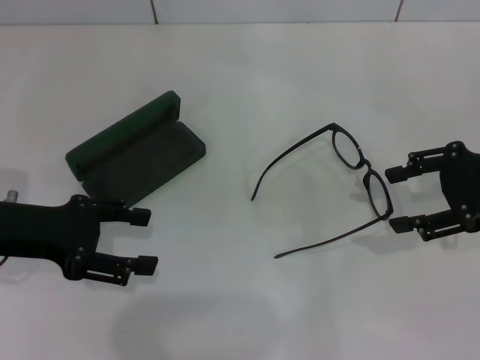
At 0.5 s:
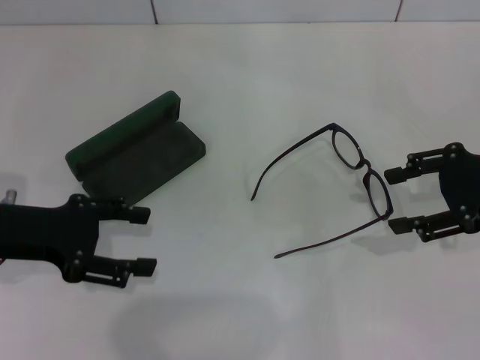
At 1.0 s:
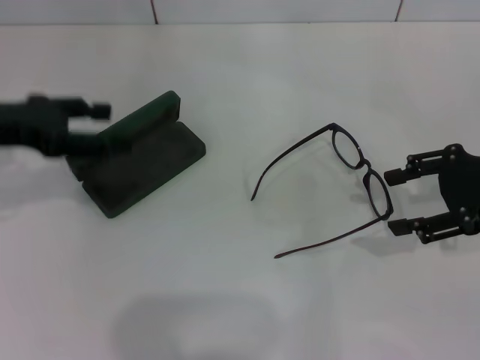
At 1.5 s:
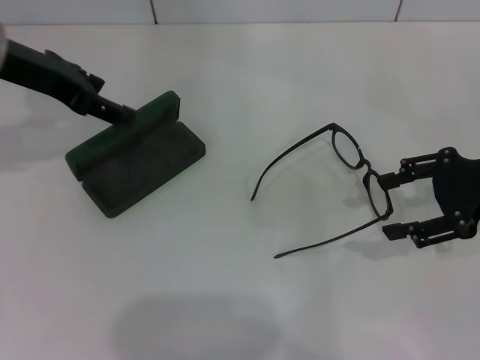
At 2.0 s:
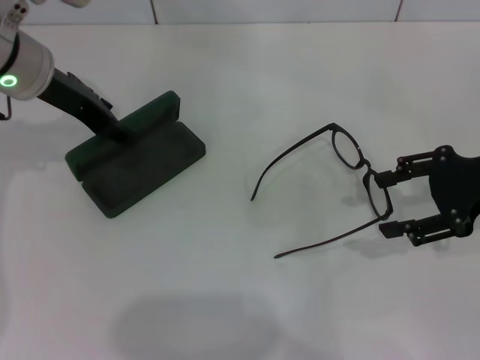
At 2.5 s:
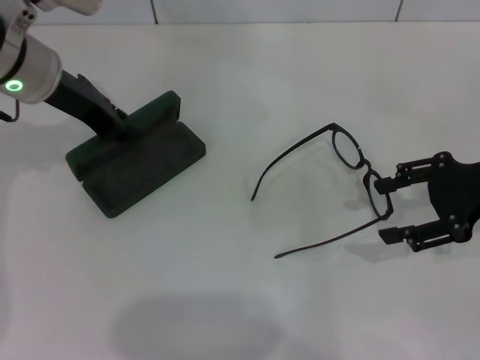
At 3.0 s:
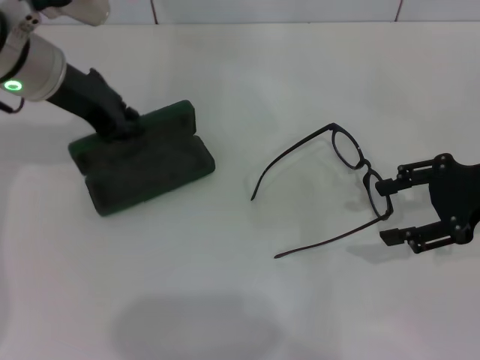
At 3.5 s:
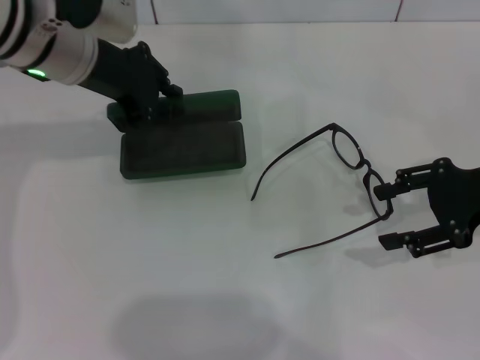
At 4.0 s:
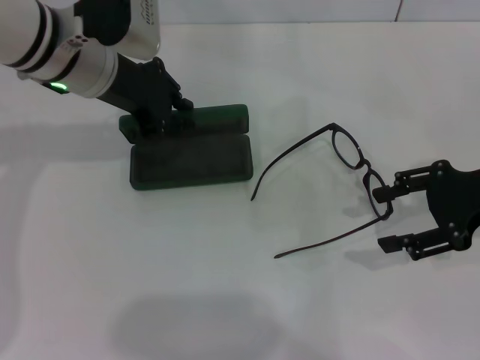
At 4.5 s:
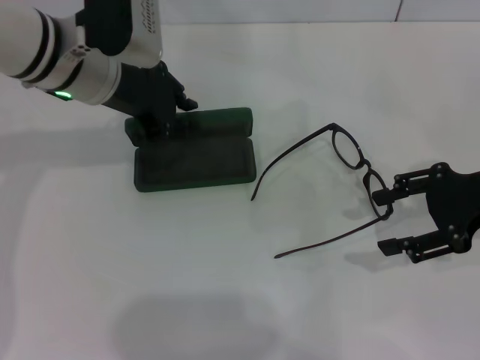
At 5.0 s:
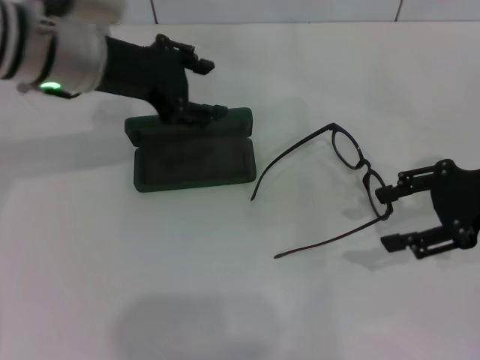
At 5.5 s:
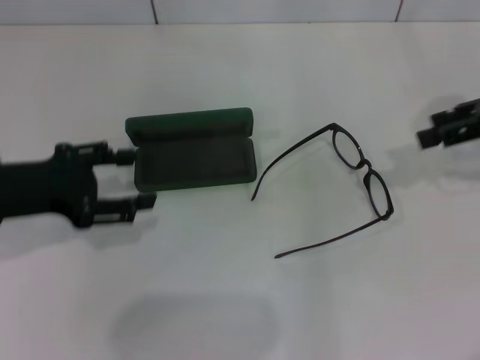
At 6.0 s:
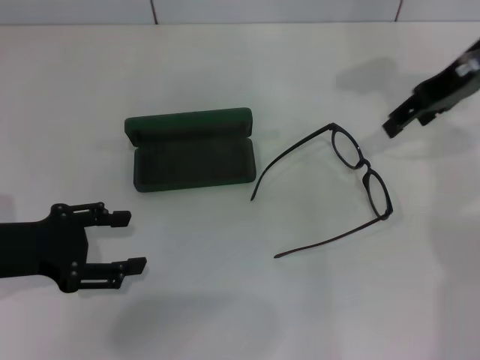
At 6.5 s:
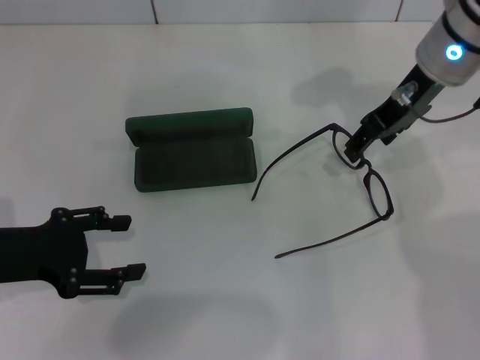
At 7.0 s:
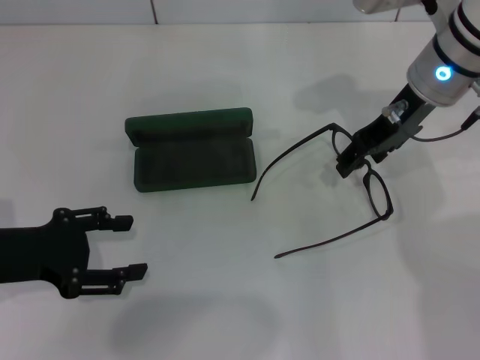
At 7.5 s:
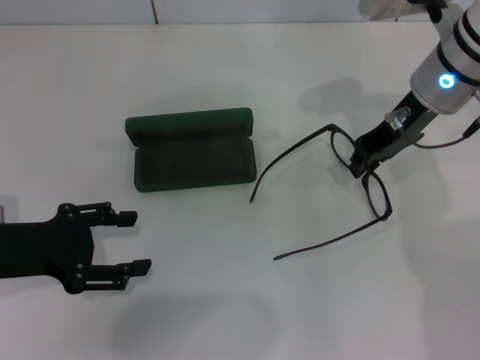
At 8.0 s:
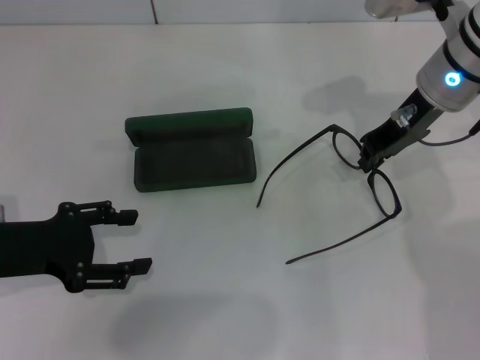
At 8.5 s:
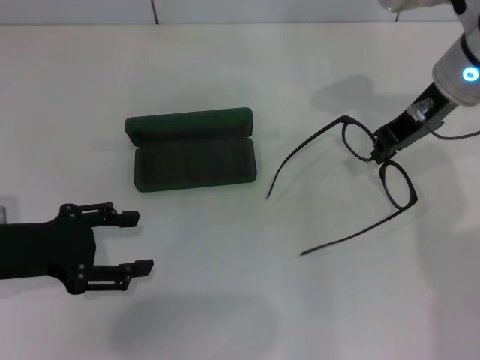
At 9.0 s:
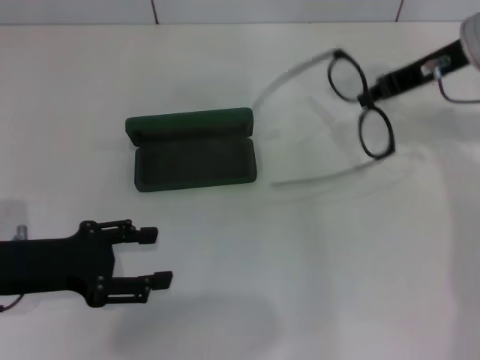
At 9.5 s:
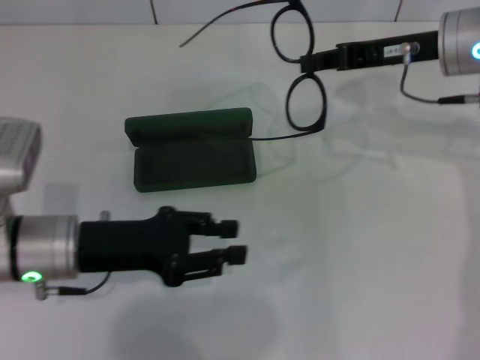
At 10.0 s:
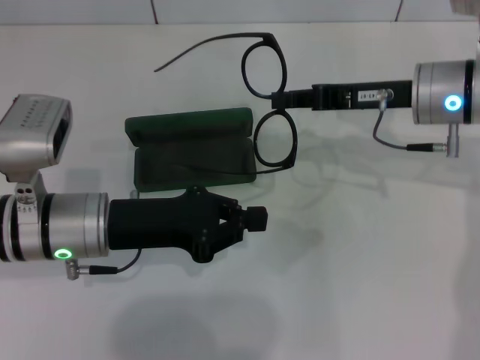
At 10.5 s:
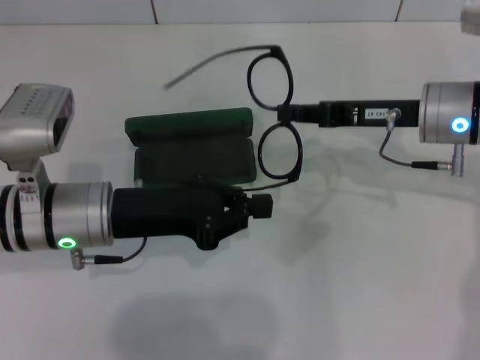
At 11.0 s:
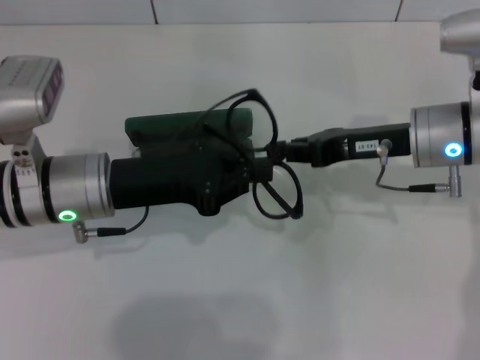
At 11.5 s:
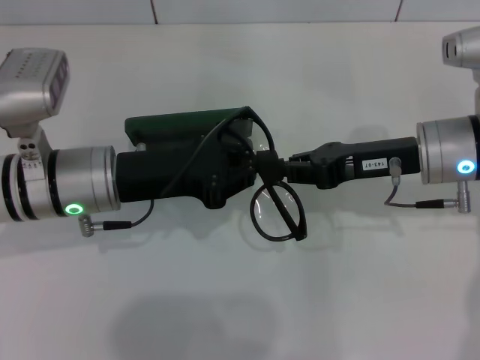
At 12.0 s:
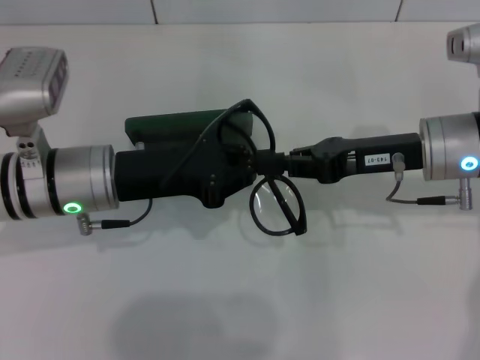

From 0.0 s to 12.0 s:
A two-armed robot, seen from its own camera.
Step, from 0.0 s to 2.5 s: Grab the glasses case with your left hand.
Step, from 3.0 s to 4.5 s: Place the glasses case in the center of the table with your left hand.
Step, from 5.5 s to 8.0 s: Grab the eyeglass frame with your right hand.
From 0.0 s to 2.0 s: The left gripper is displaced forward, upward and to the right by roughly 15 cm.
From 2.0 s to 4.0 s: The left gripper closes its fingers.
From 4.0 s to 6.0 s: The right gripper heads forward, upward and to the left, covering some 15 cm, while the left gripper is displaced backward, to the left and downward by approximately 20 cm, and opens.
From 6.0 s to 8.0 s: The right gripper travels to the left and downward by about 10 cm, and closes up.
From 8.0 s to 10.0 s: The left gripper is displaced to the right by some 10 cm, and closes.

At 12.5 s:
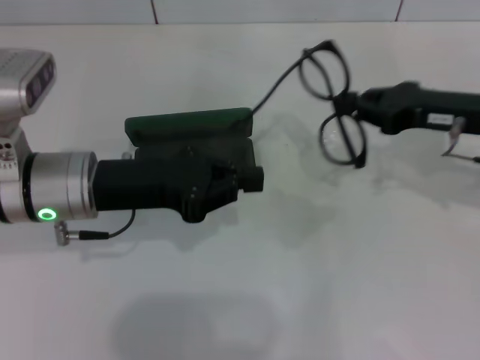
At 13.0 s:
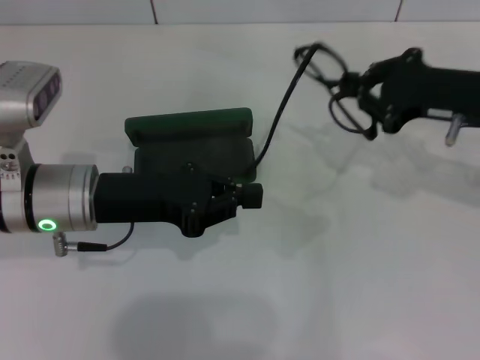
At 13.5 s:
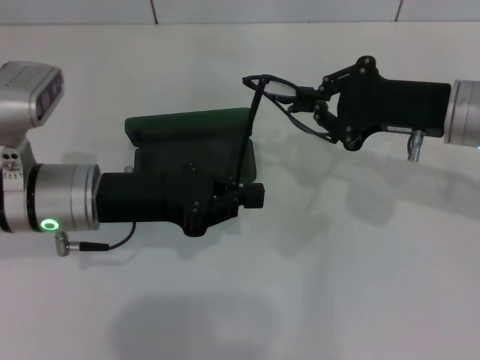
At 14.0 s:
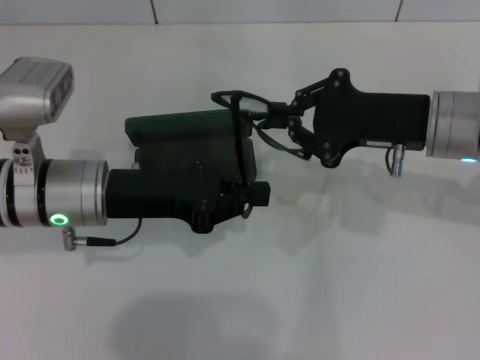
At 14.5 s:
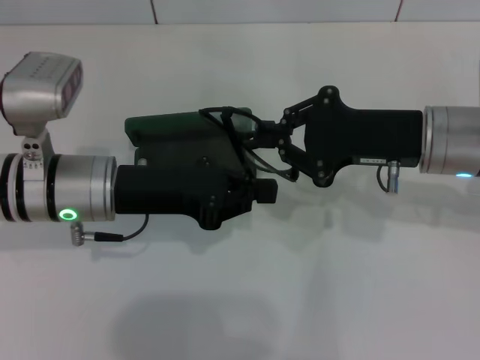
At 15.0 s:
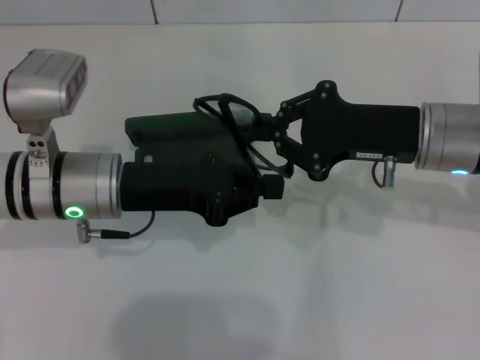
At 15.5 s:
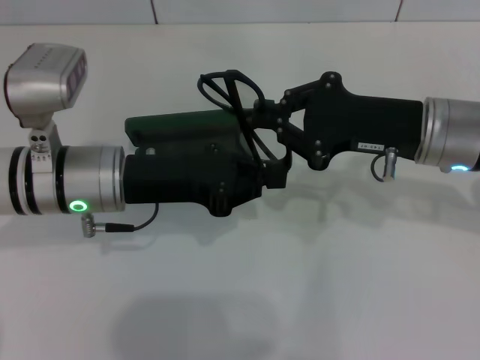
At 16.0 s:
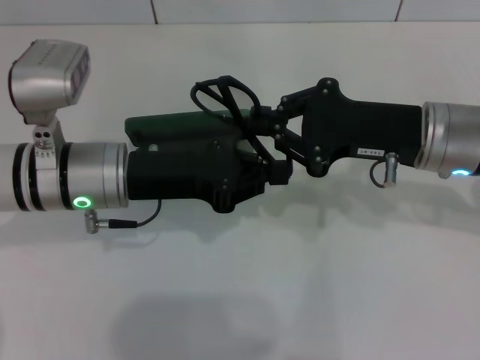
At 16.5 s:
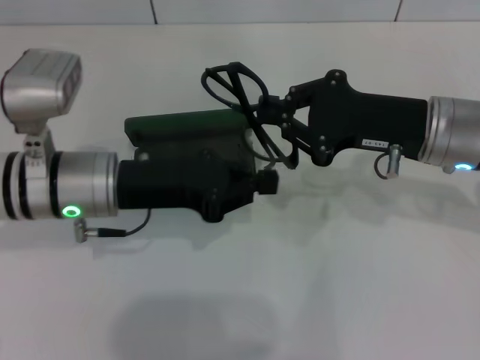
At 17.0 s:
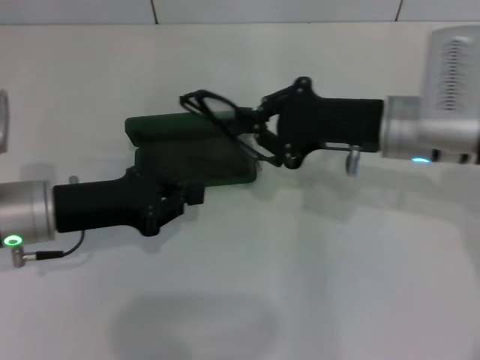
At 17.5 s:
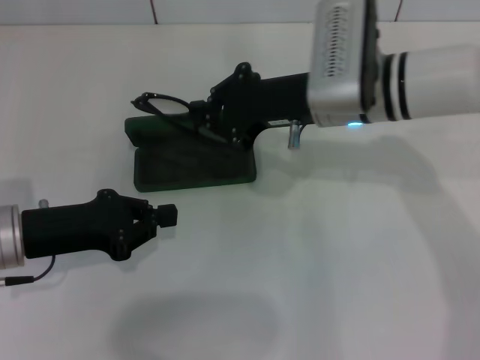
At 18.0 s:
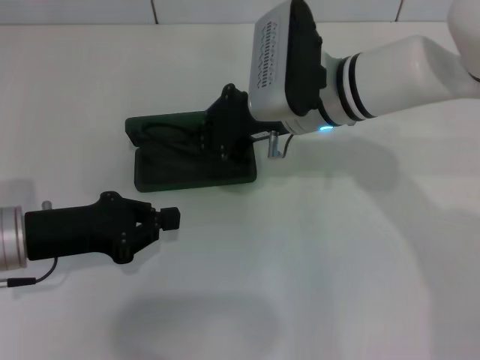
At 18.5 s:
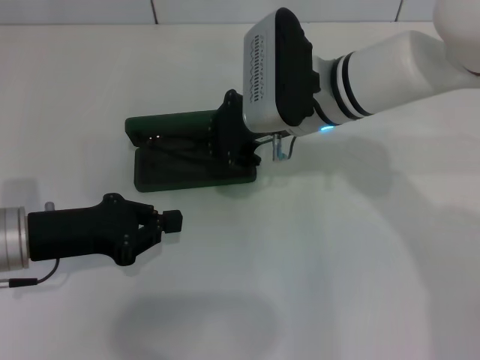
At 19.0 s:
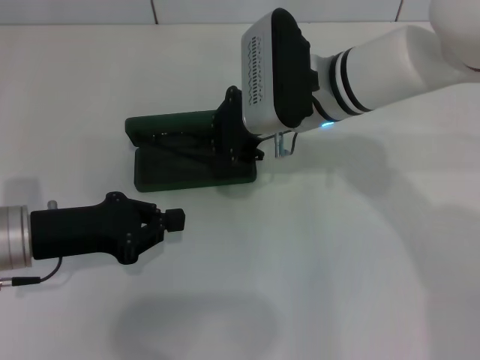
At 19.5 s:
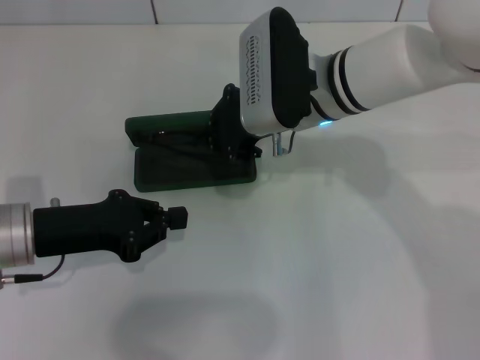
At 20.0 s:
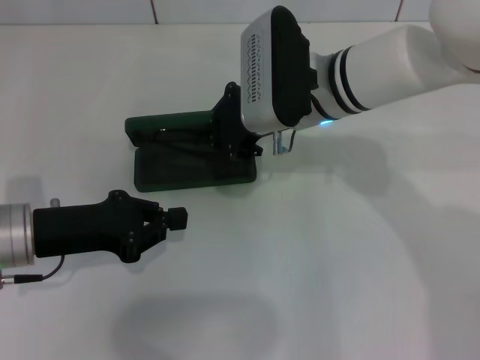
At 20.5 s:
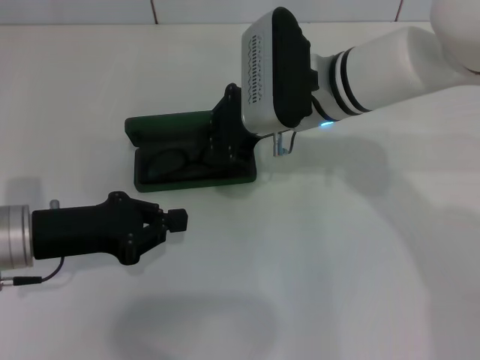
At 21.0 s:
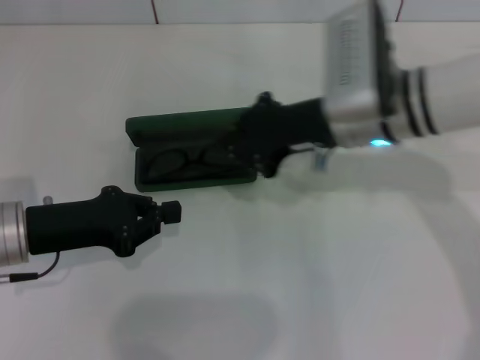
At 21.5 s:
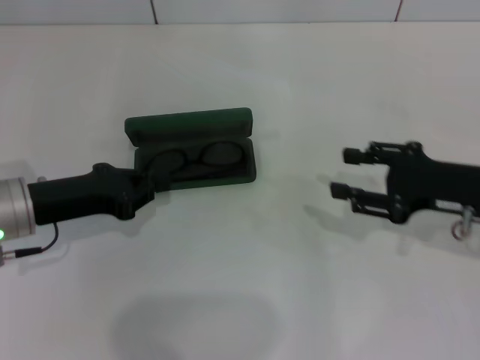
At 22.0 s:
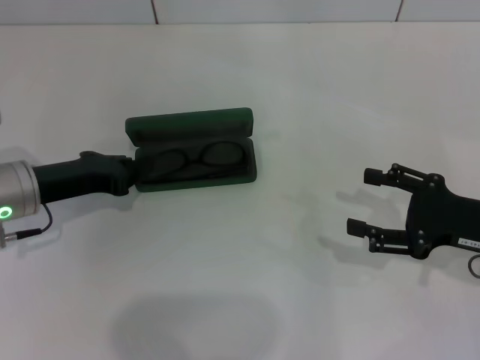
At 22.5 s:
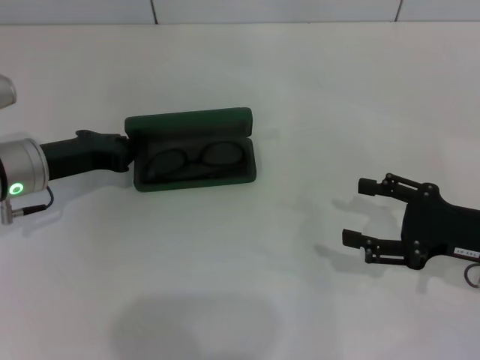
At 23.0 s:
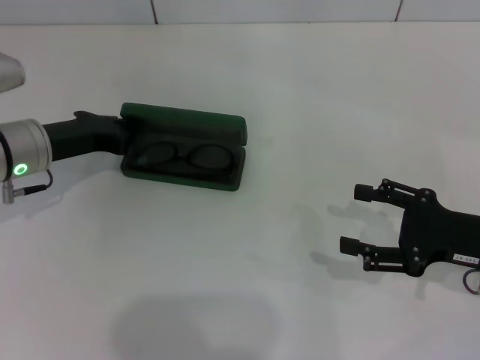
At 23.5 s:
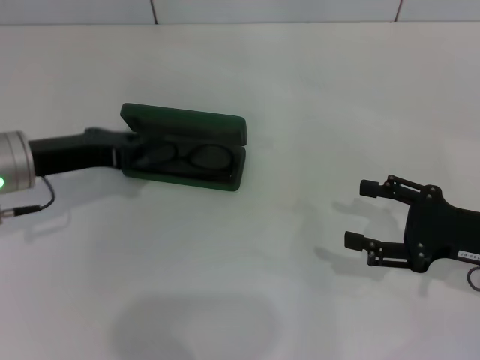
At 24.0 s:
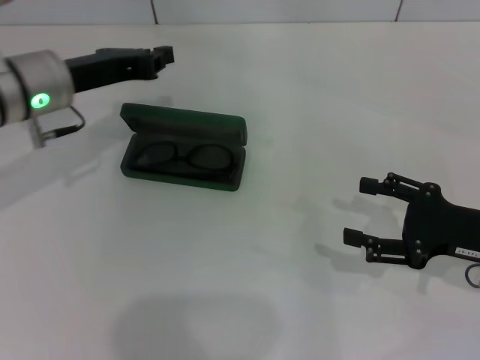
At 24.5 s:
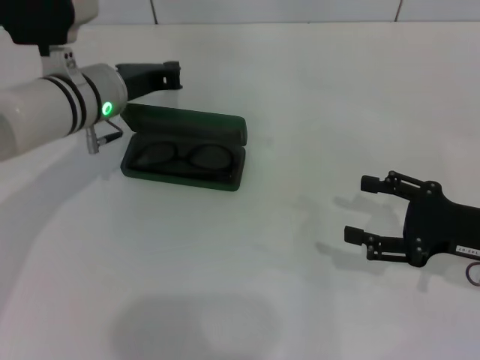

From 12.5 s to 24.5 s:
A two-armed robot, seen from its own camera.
Step, from 12.5 s to 15.5 s: Fold the frame with your left hand.
Step, from 16.0 s to 20.5 s: Put the glasses into the case with your right hand.
From 12.5 s to 14.5 s: The right gripper travels to the left by about 5 cm.
From 14.5 s to 16.5 s: There are only small adjustments of the grippers.
From 16.5 s to 18.5 s: The right gripper heads to the left and forward, covering roughly 15 cm. The left gripper moves to the left, about 10 cm.
From 18.5 s to 20.5 s: Both grippers stay about where they are.
From 20.5 s to 22.5 s: The right gripper travels to the right and backward by some 25 cm, and opens up; the left gripper is displaced forward by some 5 cm.
From 22.5 s to 24.5 s: The left gripper heads to the right and forward, covering some 10 cm.

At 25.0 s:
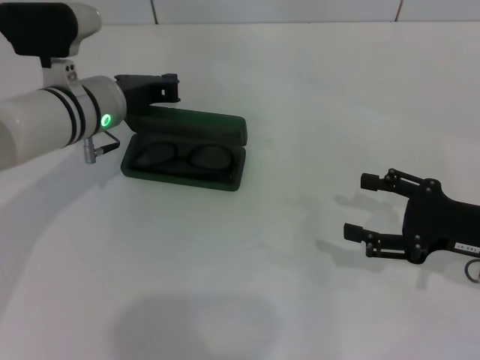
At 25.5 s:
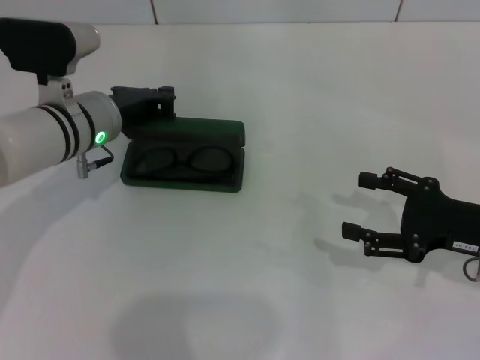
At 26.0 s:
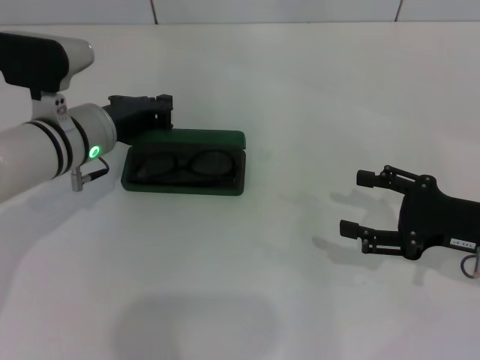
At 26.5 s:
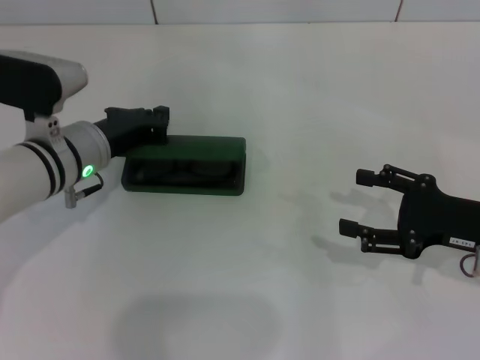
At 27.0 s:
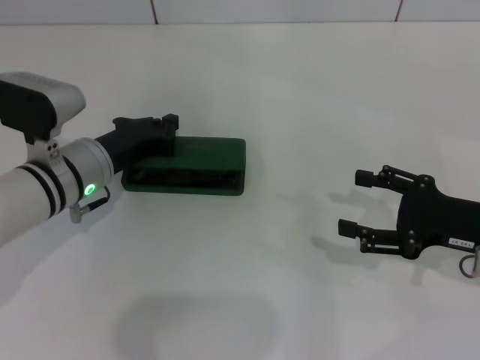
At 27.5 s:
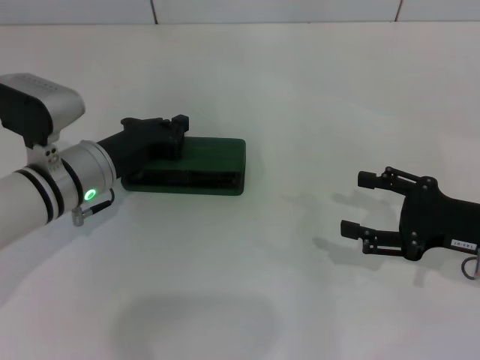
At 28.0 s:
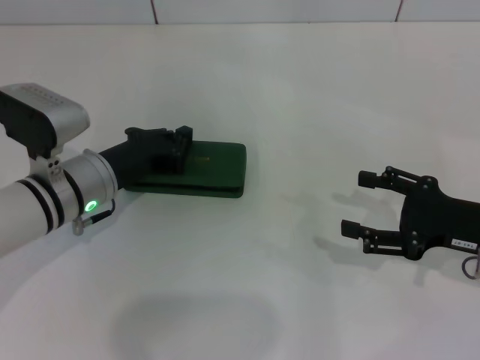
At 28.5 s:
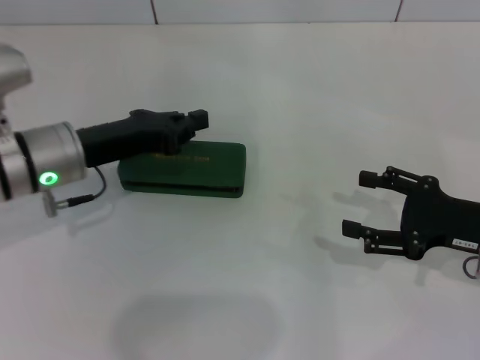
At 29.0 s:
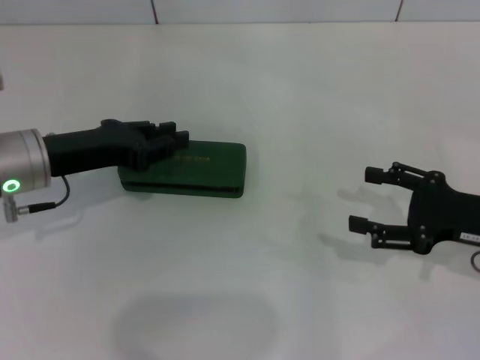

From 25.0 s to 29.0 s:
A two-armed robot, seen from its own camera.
Step, from 25.0 s to 28.0 s: Close the glasses case with your left hand.
From 25.0 s to 27.0 s: The left gripper shifts roughly 5 cm backward.
From 27.0 s to 29.0 s: The left gripper shifts some 5 cm upward.
